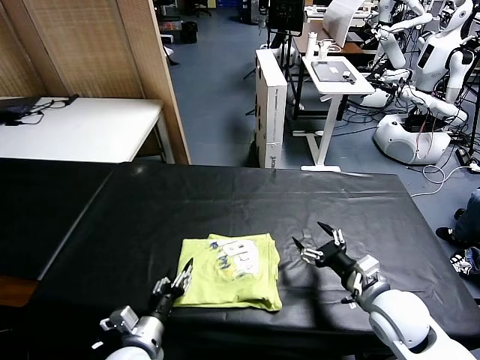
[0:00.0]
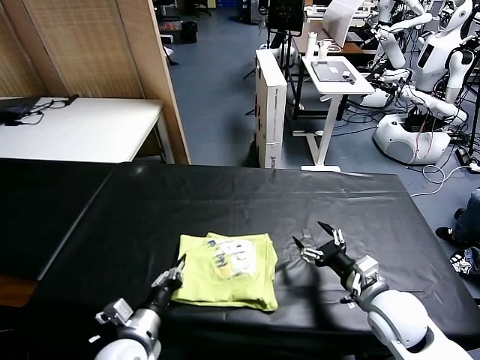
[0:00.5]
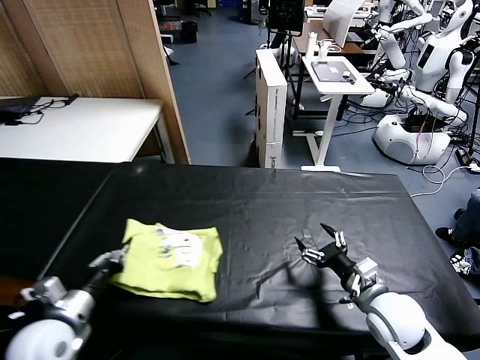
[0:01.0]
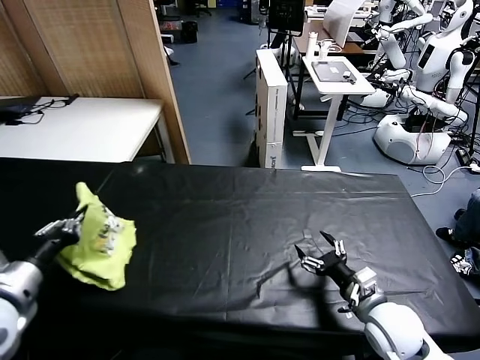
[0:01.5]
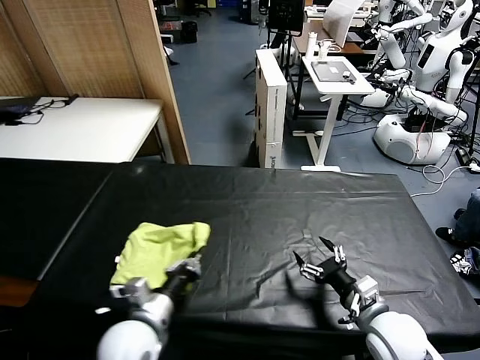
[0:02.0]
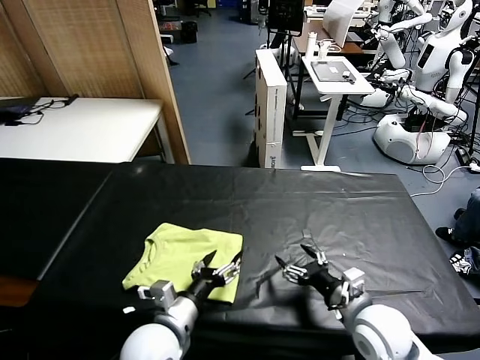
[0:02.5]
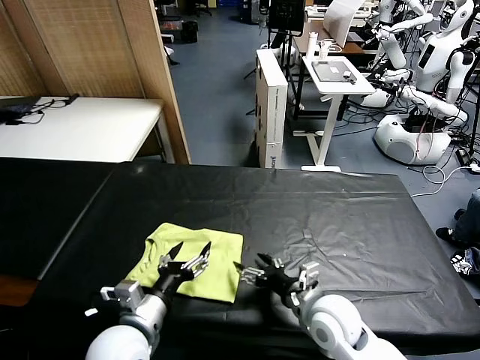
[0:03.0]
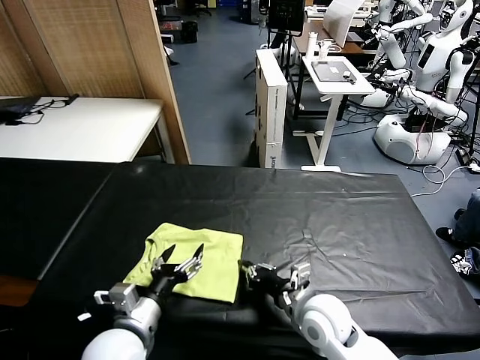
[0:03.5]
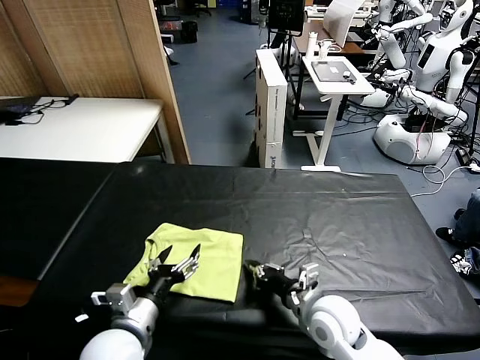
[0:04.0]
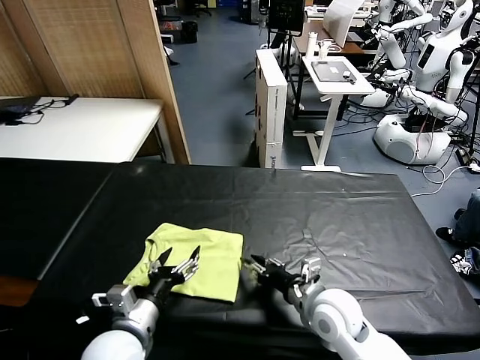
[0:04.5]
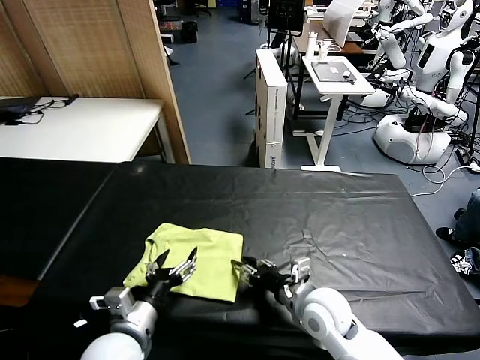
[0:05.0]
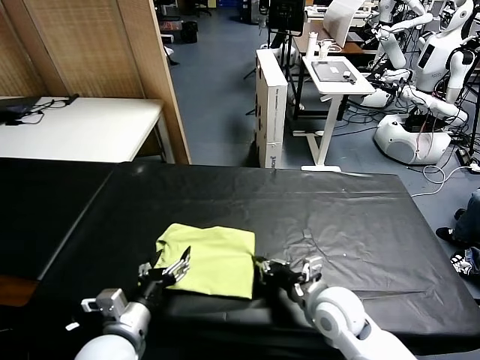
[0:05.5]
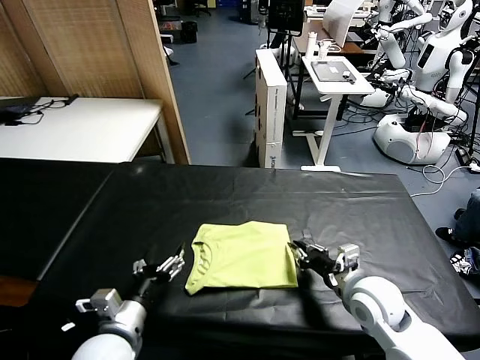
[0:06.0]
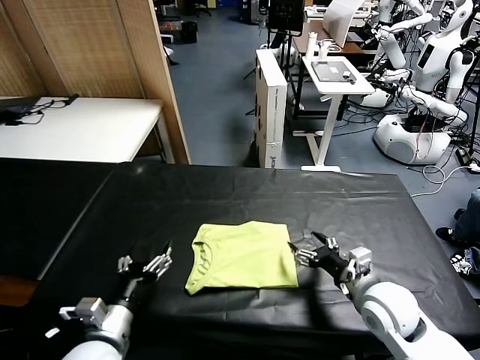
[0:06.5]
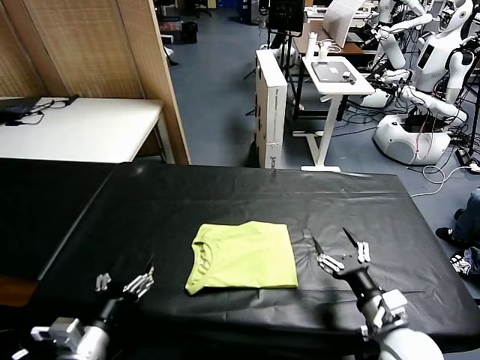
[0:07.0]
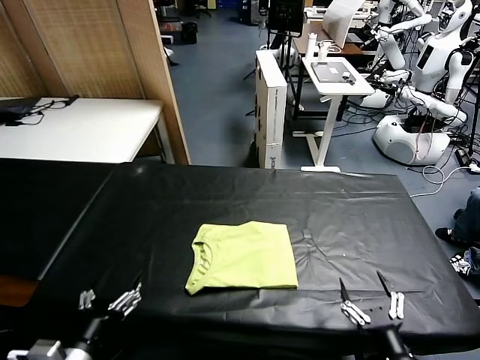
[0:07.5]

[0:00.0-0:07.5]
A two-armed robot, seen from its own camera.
Task of the whole recording: fold and organize the clothes.
Step, 0:00.0 to 0:02.5: Flip the folded clothes over with left gripper.
Step, 0:03.0 to 0:06.0: Drag the clothes to the center of the table.
0:00.0 to 0:02.0: The left gripper travels upward by approximately 10 cm, and closes up.
0:02.0 to 0:04.0: The right gripper travels to the left by roughly 10 cm, and closes its fingers; the left gripper opens its fingers.
0:04.0 to 0:05.5: The right gripper opens and closes again.
0:05.5 to 0:07.5: The left gripper travels backward and to the left by roughly 10 cm, while the right gripper goes approximately 20 cm backward and to the right, and opens.

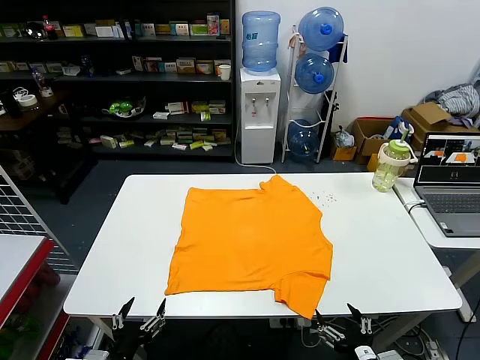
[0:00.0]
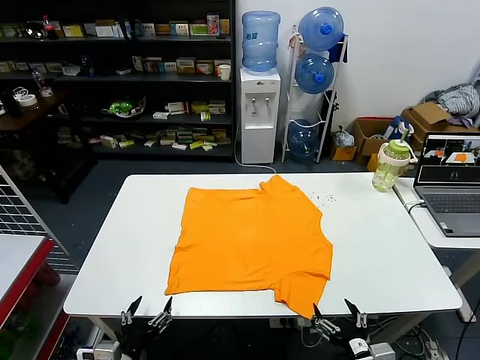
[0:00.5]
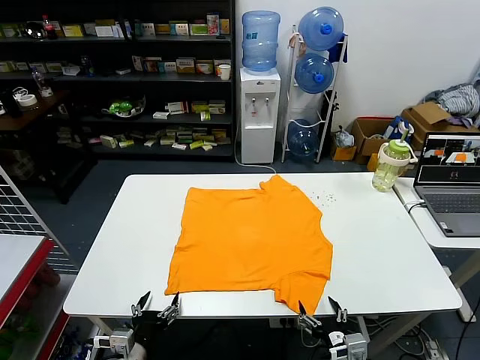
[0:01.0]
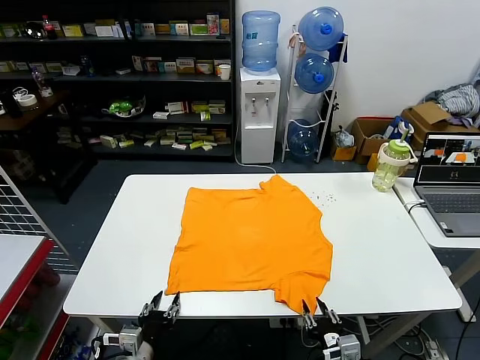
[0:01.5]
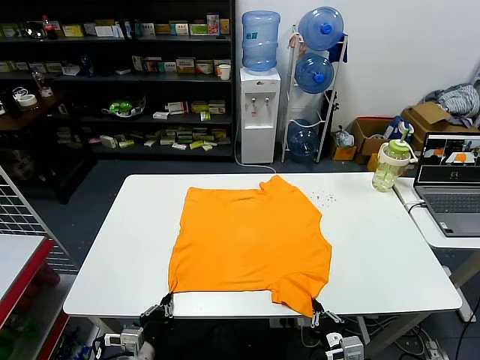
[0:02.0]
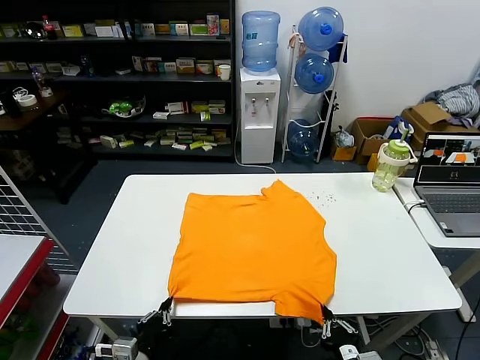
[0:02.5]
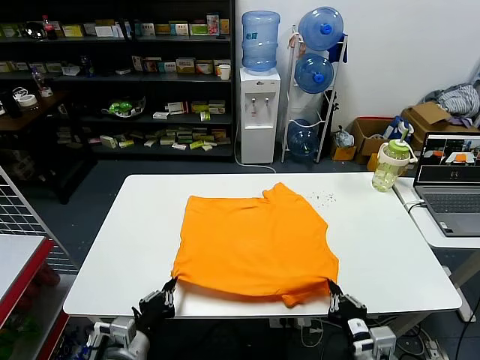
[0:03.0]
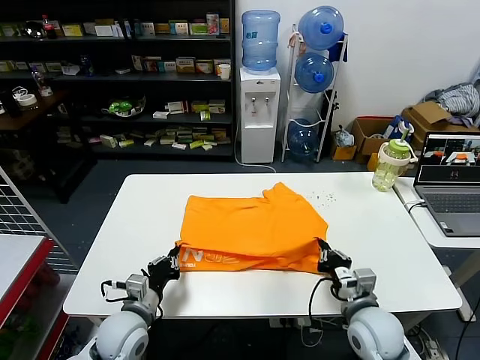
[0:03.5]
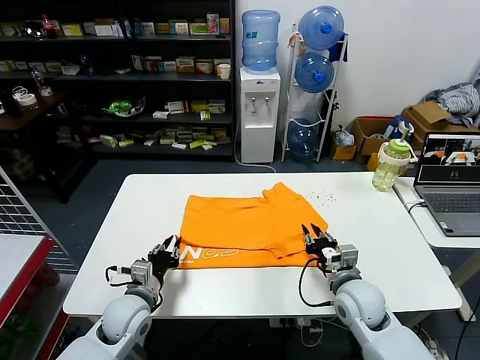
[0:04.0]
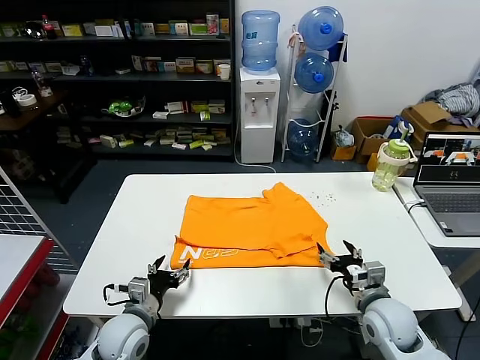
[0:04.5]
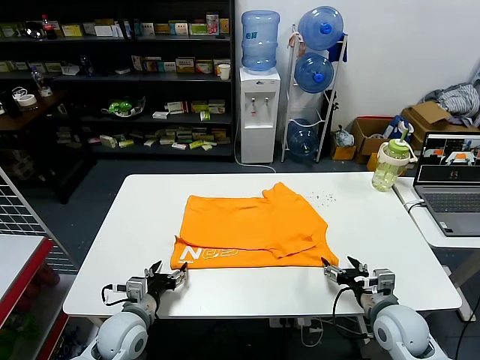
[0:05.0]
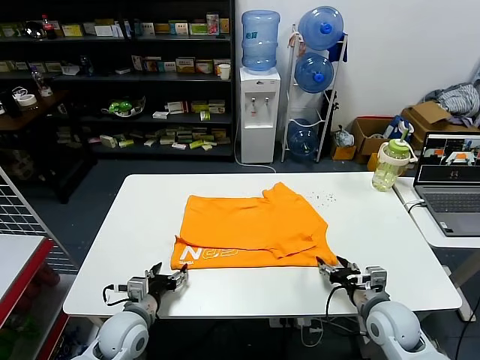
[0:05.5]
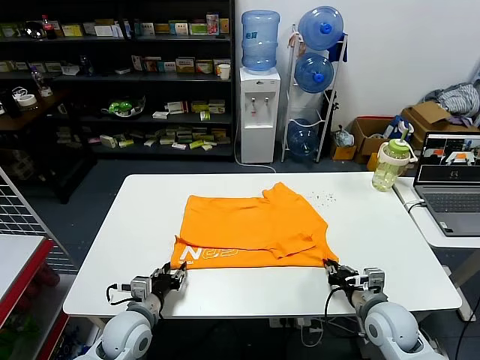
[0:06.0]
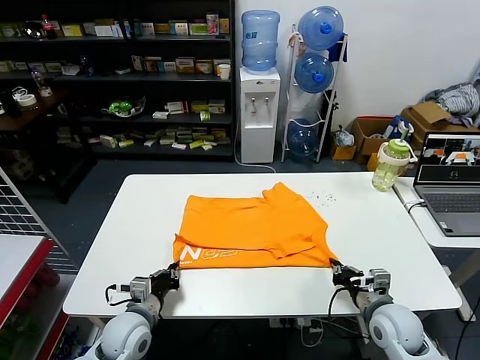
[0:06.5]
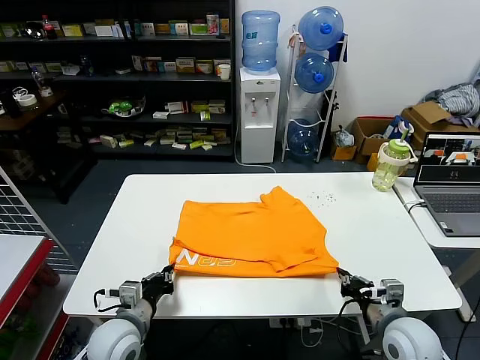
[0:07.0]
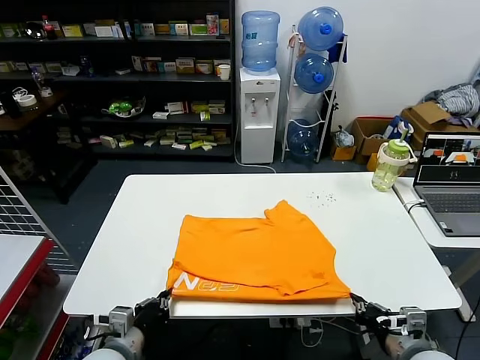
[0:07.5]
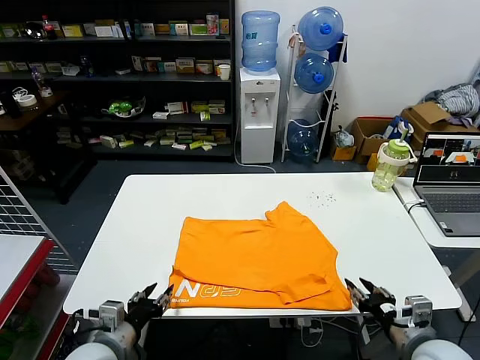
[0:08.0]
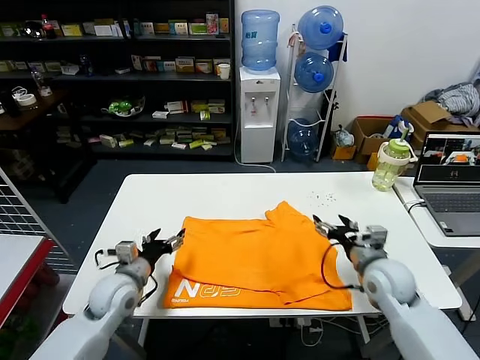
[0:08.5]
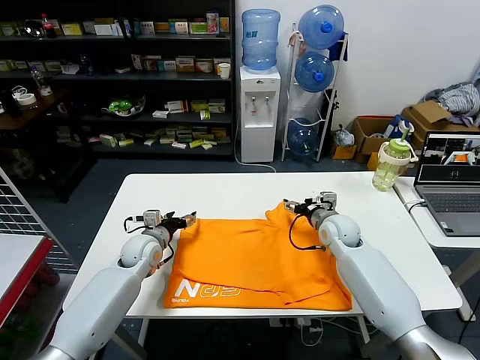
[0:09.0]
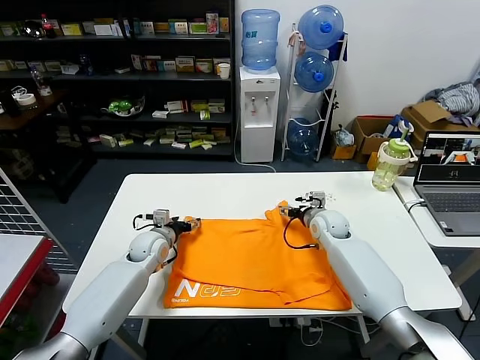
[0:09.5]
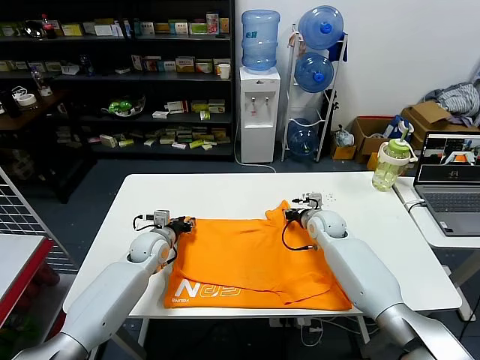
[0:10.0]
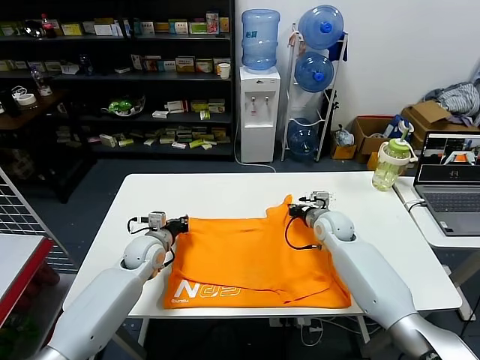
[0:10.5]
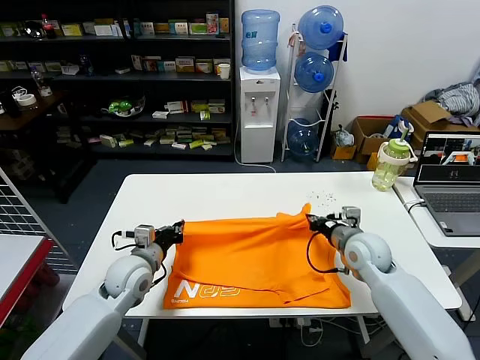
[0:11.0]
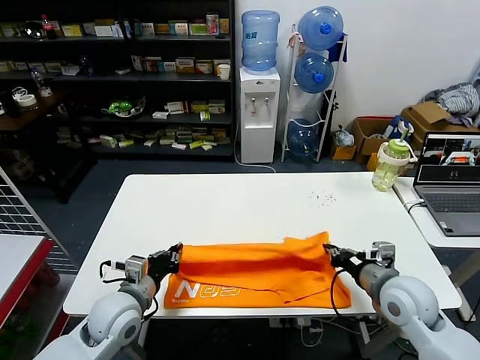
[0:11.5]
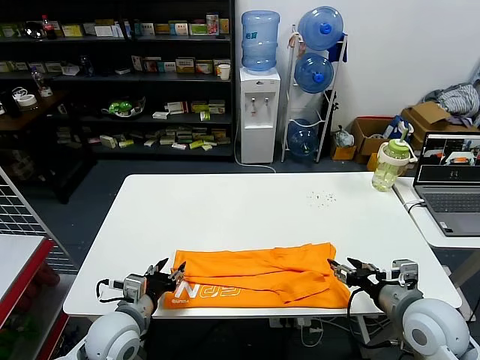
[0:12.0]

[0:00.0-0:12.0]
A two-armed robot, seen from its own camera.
Task of the whole recording: fold and organize the clothes.
Step, 0:00.0 to 0:02.0: use both grippers simultaneously to clamp the lower edge of the clothing fabric.
Step, 0:02.5 to 0:03.5: use both grippers to drag the lower edge of the fabric forward and fold it over the upper edge.
Step, 0:04.0 to 0:07.5: Drag the clothes downward with both gripper.
Step, 0:08.0 to 0:10.0: use both grippers simultaneously to clamp the upper edge of the clothing fabric.
Step, 0:10.5 to 0:11.5: use both grippers to drag the upper edge of the fabric backward and fold it over the lower edge.
0:02.0 to 0:04.0: Both grippers move forward, some 15 cm. The right gripper opens up, while the left gripper opens.
0:04.0 to 0:06.0: The left gripper opens, then closes once more; the right gripper shifts approximately 5 cm to the right, and closes.
0:06.0 to 0:08.0: The grippers both shift backward and upward by about 10 cm. The right gripper opens up, while the left gripper closes and opens again.
0:08.0 to 0:10.0: The grippers both shift forward by some 30 cm. The left gripper opens, then closes once more; the right gripper opens and closes again.
0:10.0 to 0:12.0: The two grippers go about 25 cm backward. The left gripper closes, then opens again, while the right gripper opens up.

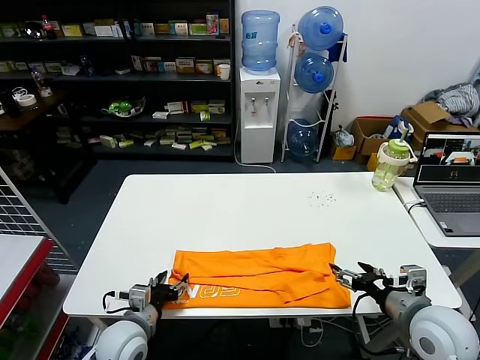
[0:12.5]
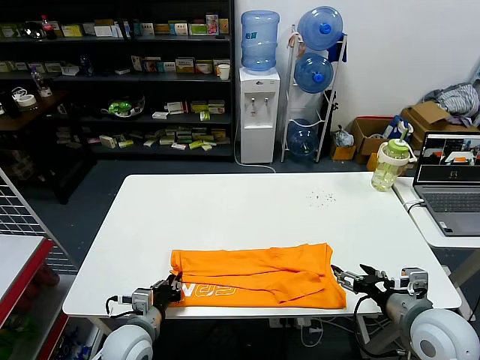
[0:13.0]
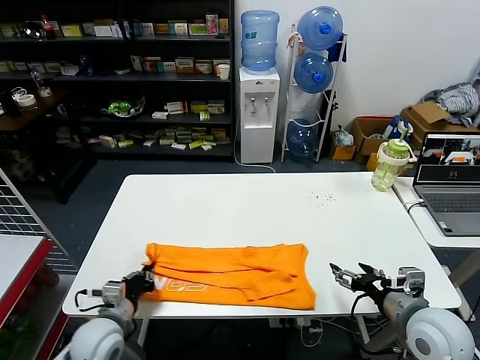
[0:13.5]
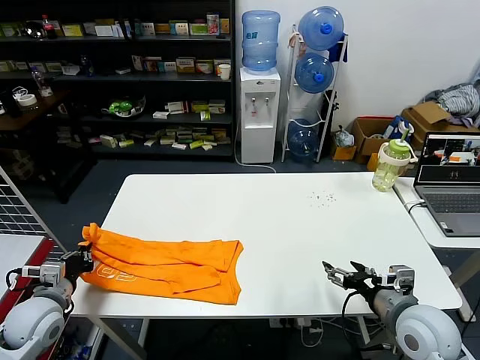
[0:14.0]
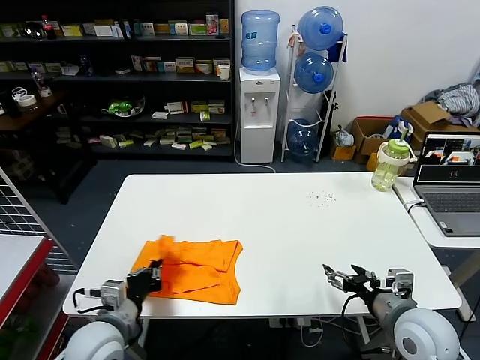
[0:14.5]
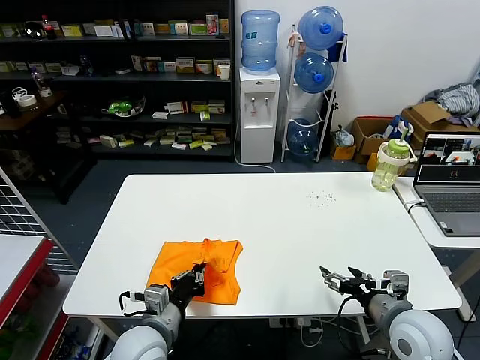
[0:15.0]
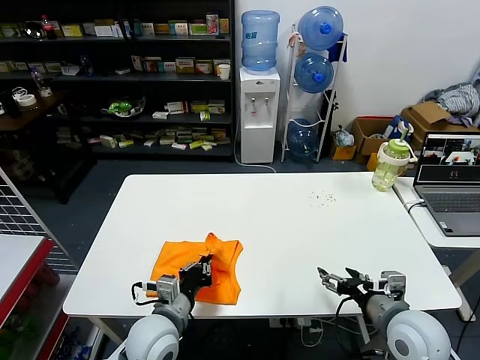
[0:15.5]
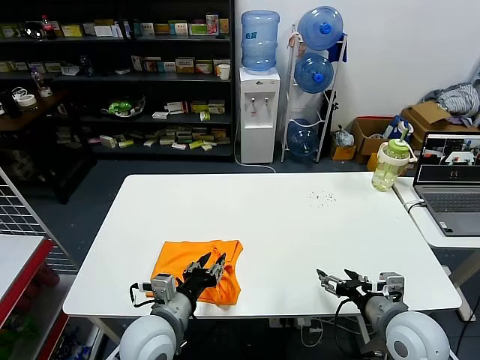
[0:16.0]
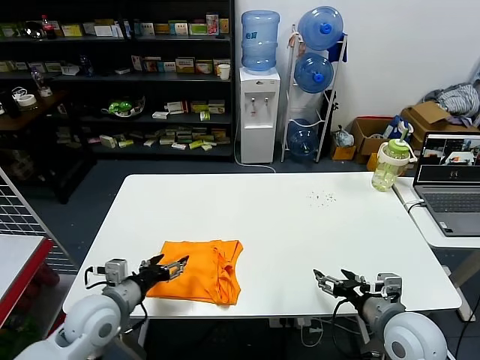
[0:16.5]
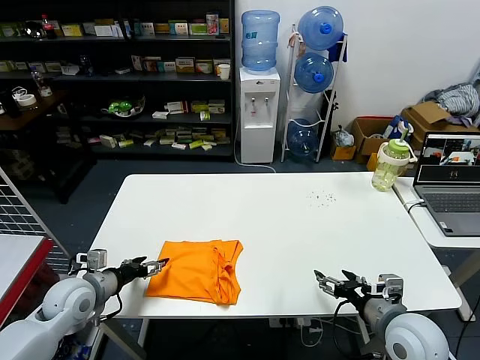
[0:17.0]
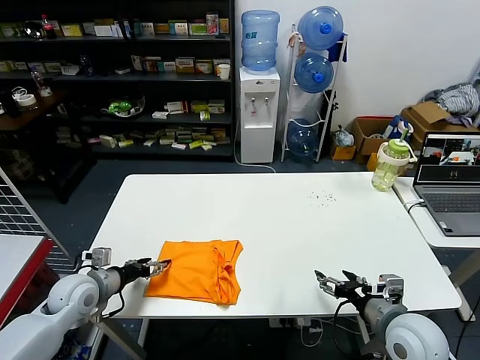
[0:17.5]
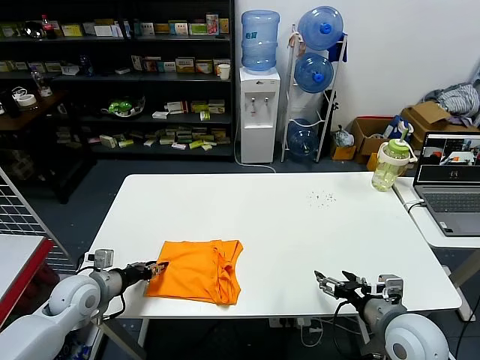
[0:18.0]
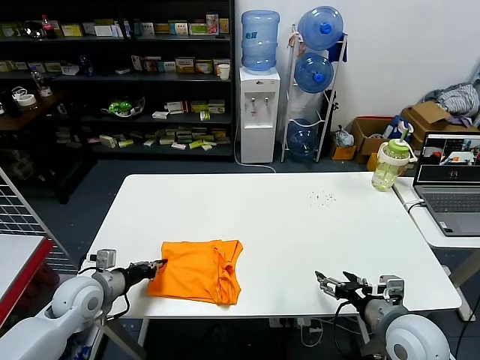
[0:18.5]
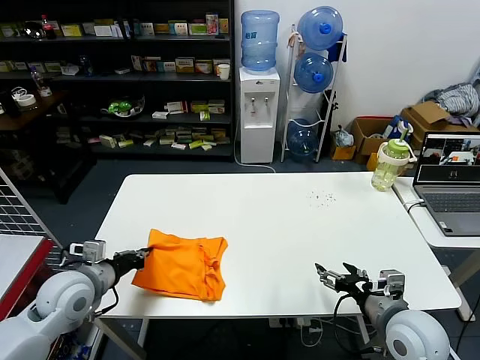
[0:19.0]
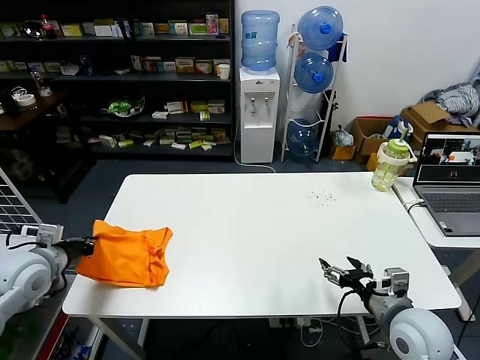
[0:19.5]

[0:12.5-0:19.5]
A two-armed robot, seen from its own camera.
Task of the whole recording: fold and organize the clothes.
Step, 0:13.5 to 0:15.5: use the left gripper to drag the left edge of the fabric to the left and folds it over the right edge.
0:12.5 to 0:14.5: The left gripper goes about 5 cm upward, goes to the left and returns, roughly 15 cm each way, and closes its fingers.
0:14.5 to 0:16.0: The left gripper moves to the right, some 10 cm, and opens its fingers.
0:16.0 to 0:17.5: The left gripper travels to the left and forward by roughly 25 cm, and opens its fingers.
0:17.5 to 0:19.5: The left gripper is displaced upward by some 10 cm, and closes its fingers.
